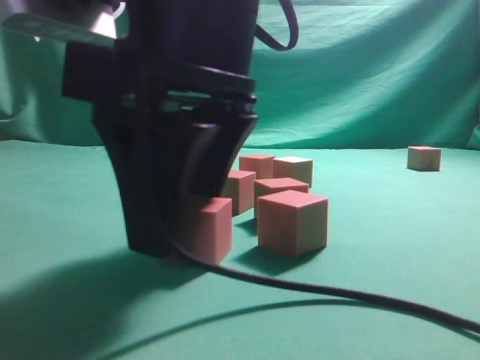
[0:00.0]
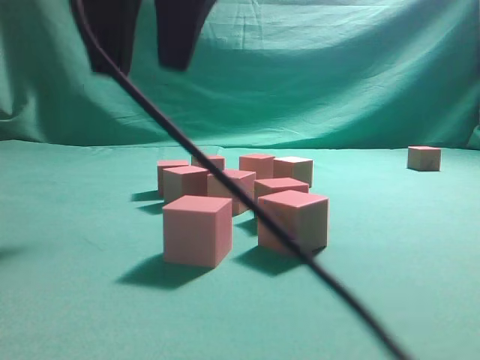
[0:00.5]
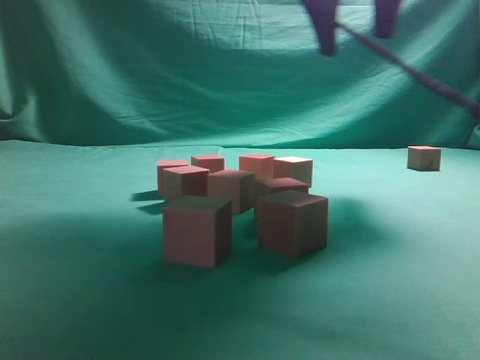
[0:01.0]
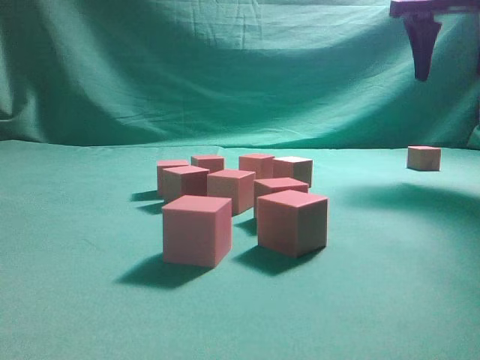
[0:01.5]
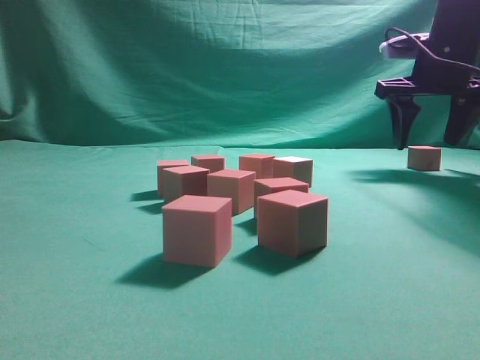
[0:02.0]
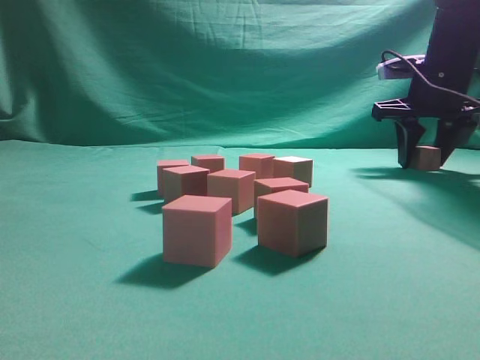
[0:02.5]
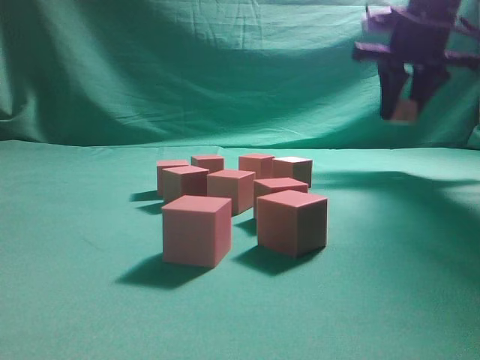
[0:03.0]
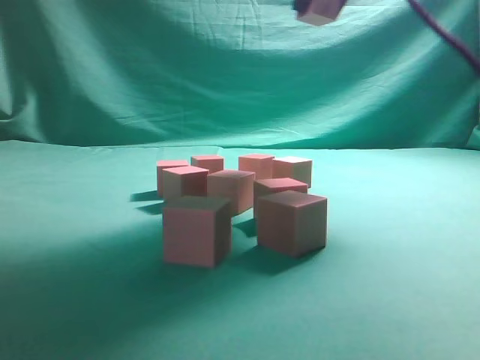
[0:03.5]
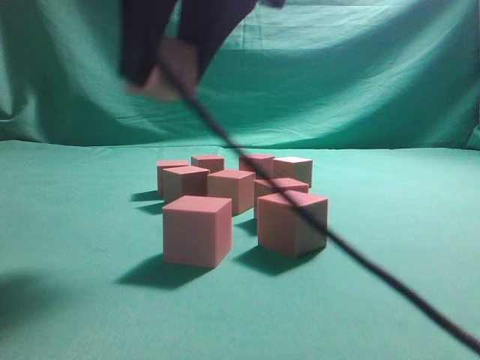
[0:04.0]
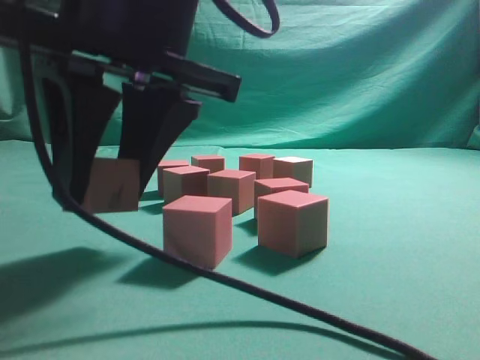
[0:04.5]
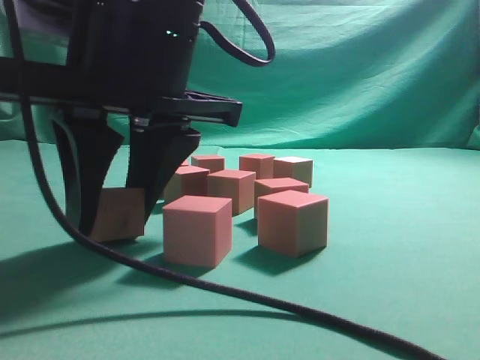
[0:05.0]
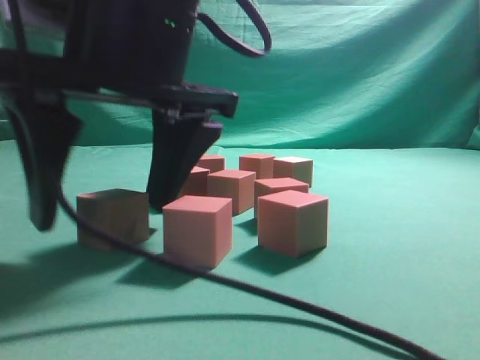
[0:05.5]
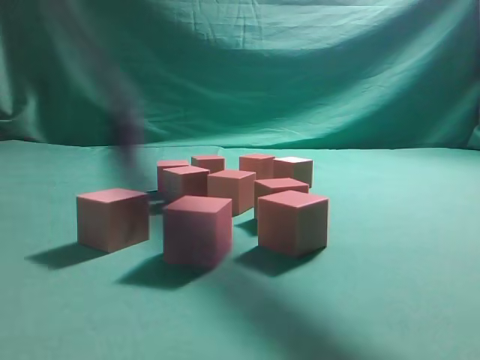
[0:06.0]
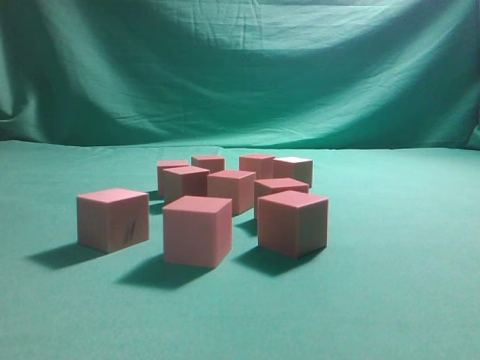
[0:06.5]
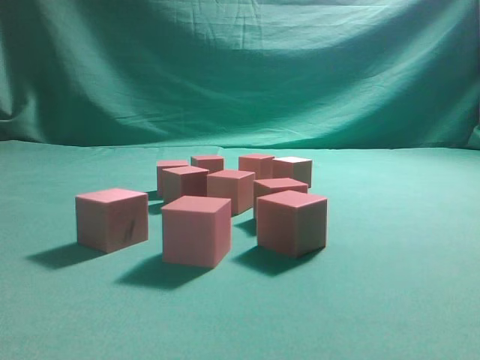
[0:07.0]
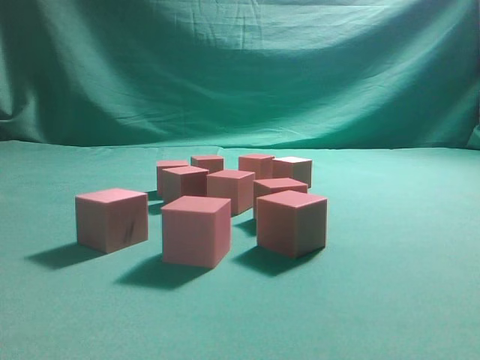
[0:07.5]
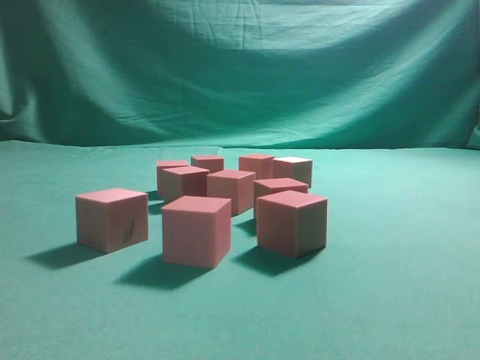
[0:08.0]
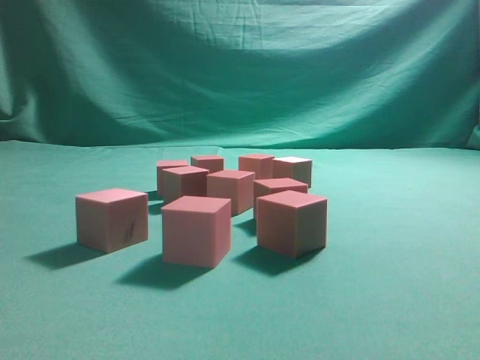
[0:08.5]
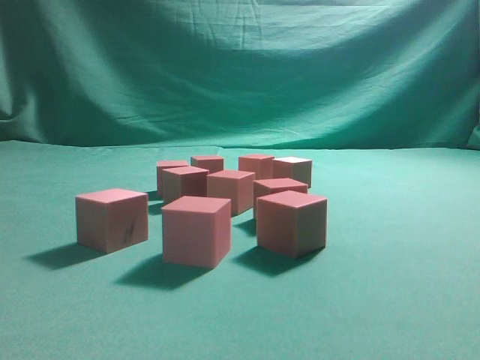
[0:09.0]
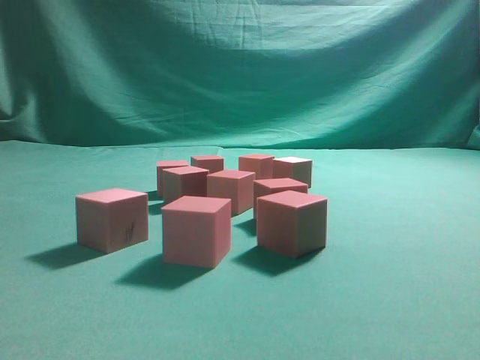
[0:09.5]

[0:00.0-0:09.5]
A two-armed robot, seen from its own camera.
Task of the whole recording: pick up the multiple cubes in two columns one by one and place them in another position on the table.
Step, 0:00.5 to 0:02.5: Pick up the block on the table.
Step, 0:03.0 to 0:05.5: Place the block at the correct position to assemble the letter S.
0:00.0 to 0:02.0: The right gripper heads to the right and forward, covering approximately 40 cm.
0:02.0 to 0:04.0: The right gripper heads to the left and backward, covering roughly 35 cm, and closes.
0:04.0 to 0:05.5: The right gripper is displaced downward by roughly 10 cm, and opens up.
0:05.5 to 0:07.5: The right gripper moves to the right, backward and upward, some 40 cm, and closes up.
